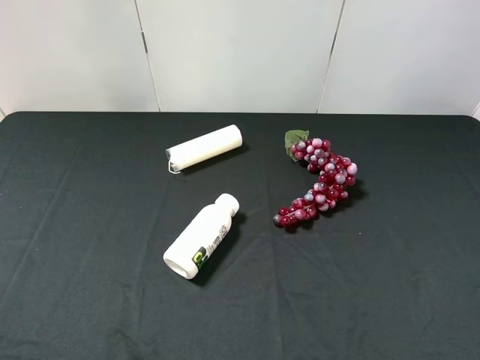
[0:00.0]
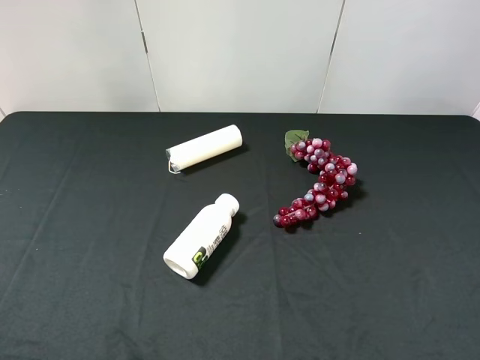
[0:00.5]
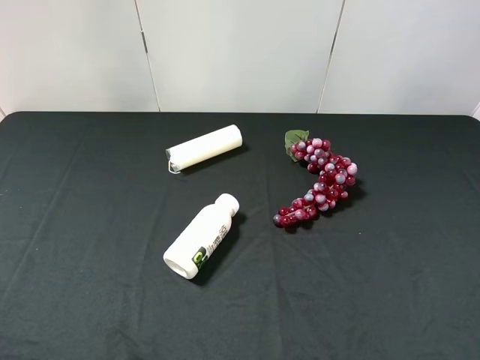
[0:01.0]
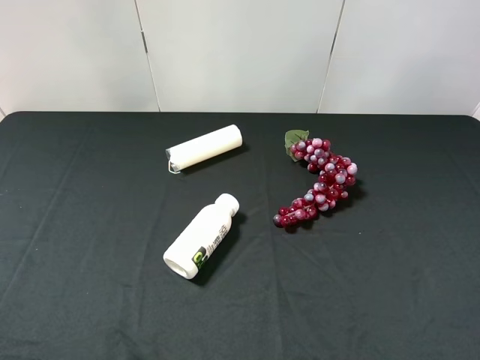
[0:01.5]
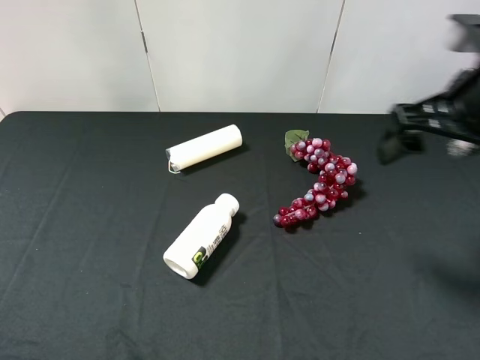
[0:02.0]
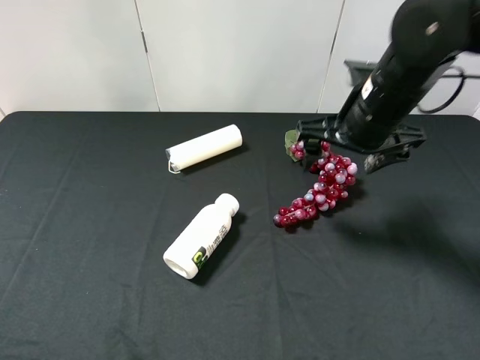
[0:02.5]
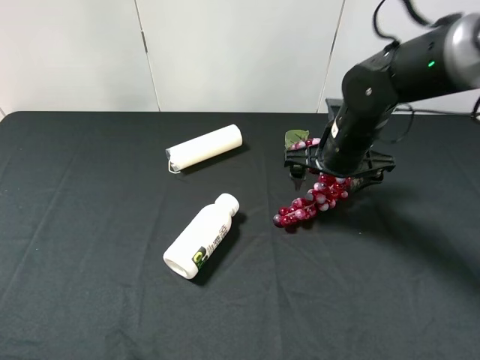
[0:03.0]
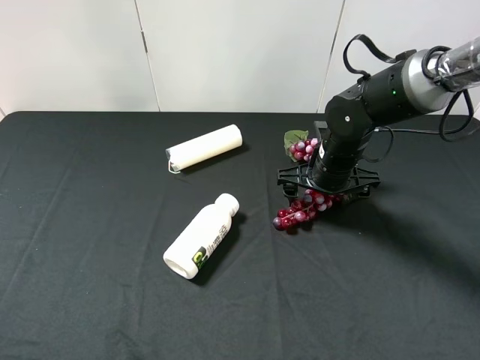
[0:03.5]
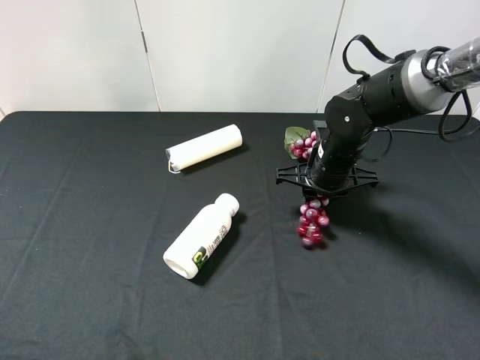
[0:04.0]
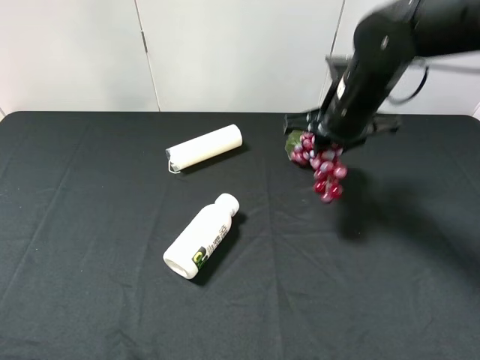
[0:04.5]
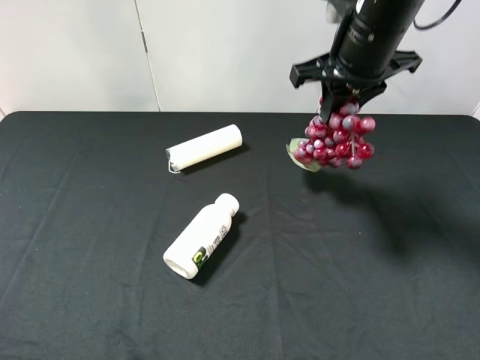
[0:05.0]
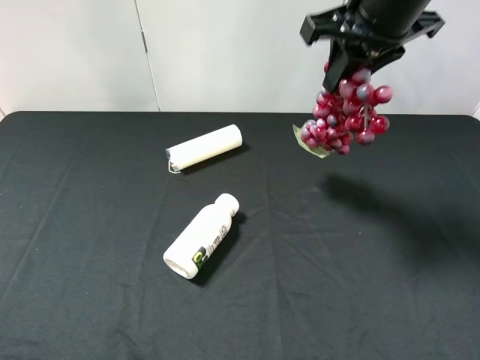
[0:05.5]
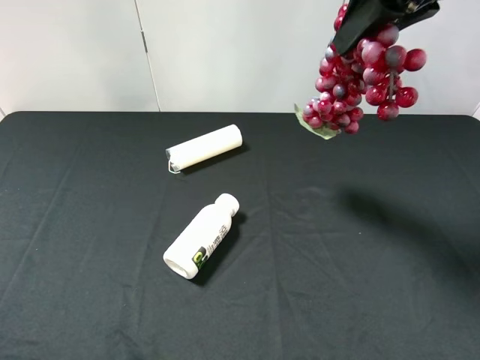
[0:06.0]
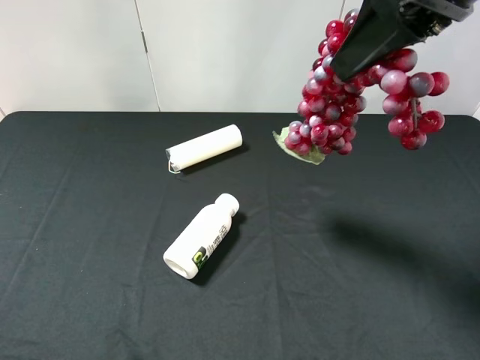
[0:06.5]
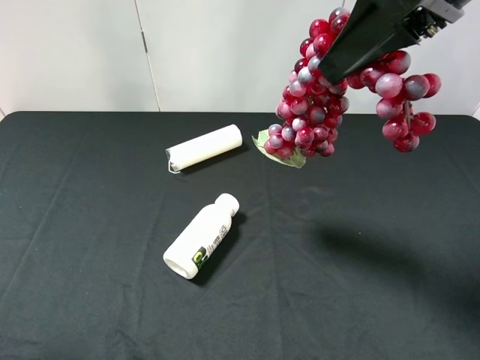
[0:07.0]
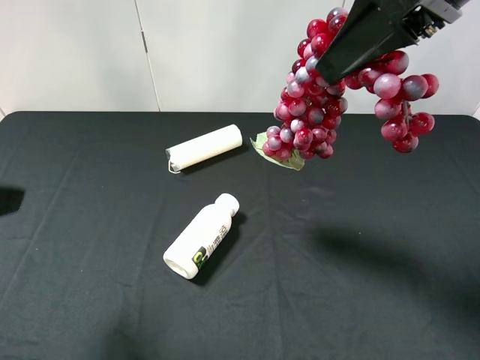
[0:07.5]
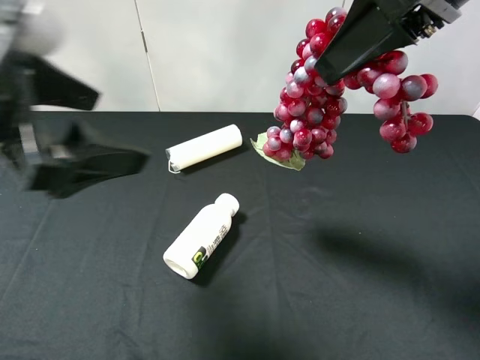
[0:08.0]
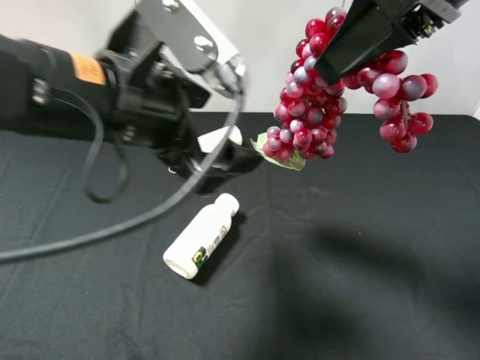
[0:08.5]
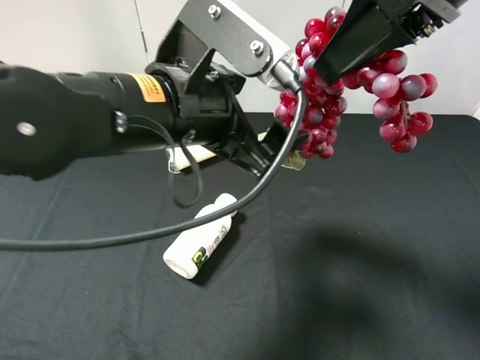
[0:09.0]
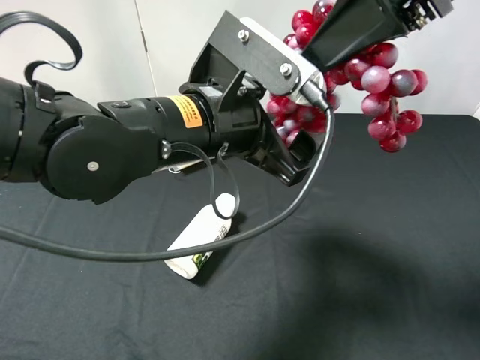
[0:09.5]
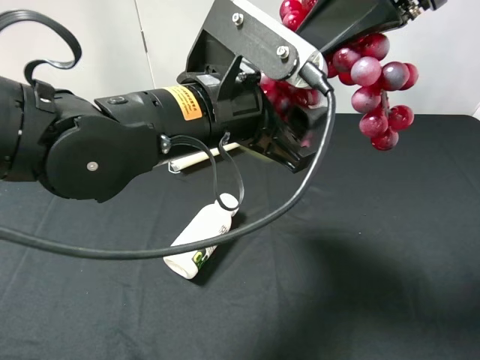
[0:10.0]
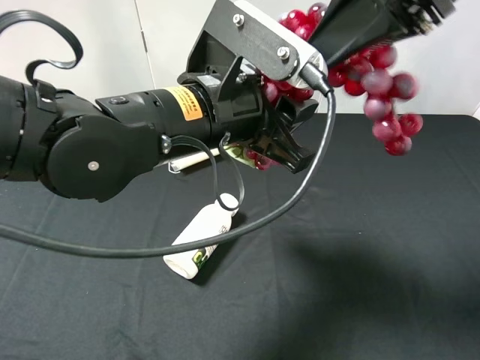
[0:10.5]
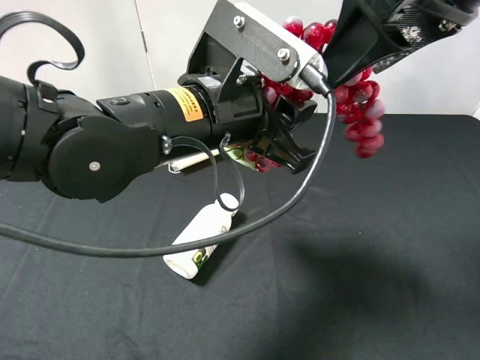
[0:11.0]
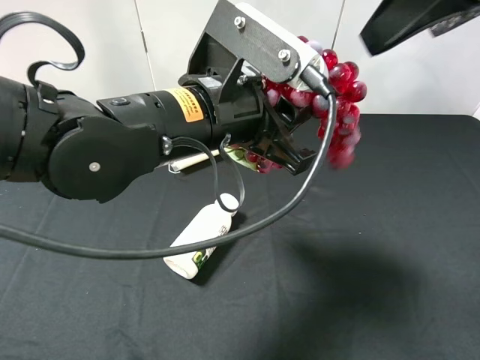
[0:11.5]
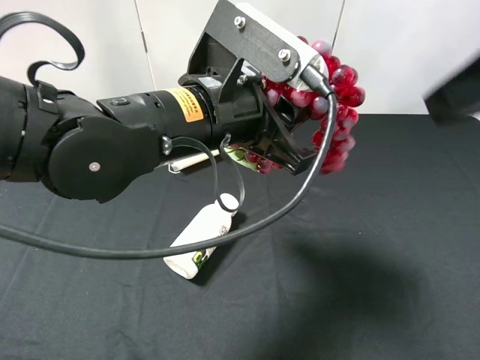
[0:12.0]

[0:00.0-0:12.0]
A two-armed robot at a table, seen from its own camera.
Task of the whole recording: use the right gripper to pick up the item and transfer it from the right gripper to the left gripper.
Step, 0:00.0 to 0:04.0: Use the right gripper to grab the grape on the right side of the table.
Step, 0:04.5 to 0:11.5: Pass the grape to the left gripper.
0:00.0 to 0:02.0: The right gripper heads forward, covering about 20 cm.
0:02.0 to 0:04.0: The right gripper travels downward, forward and to the left by some 20 cm, and closes its fingers.
0:04.0 to 0:06.0: The right gripper heads upward, covering some 30 cm.
0:06.0 to 0:08.0: The left gripper moves forward and to the right, about 20 cm.
0:08.0 to 0:10.0: The left gripper travels to the right and downward by about 15 cm, and closes up.
0:10.0 to 0:12.0: The right gripper moves backward and to the right, about 15 cm, and opens up.

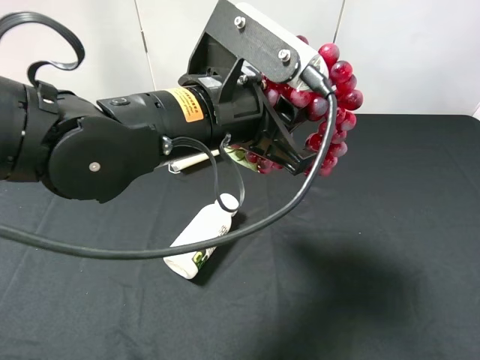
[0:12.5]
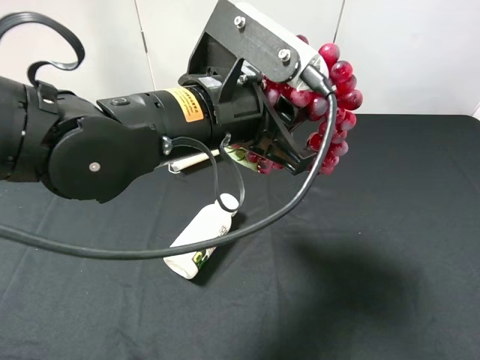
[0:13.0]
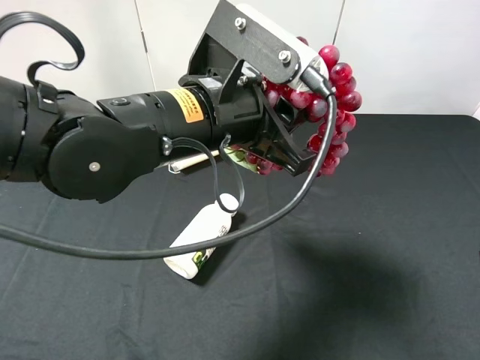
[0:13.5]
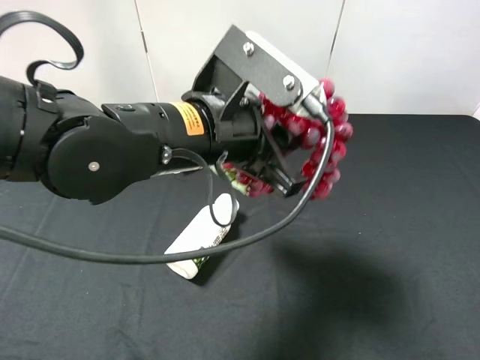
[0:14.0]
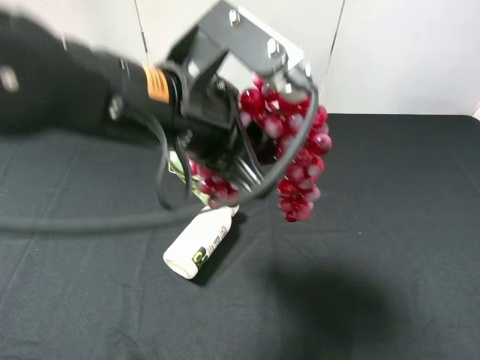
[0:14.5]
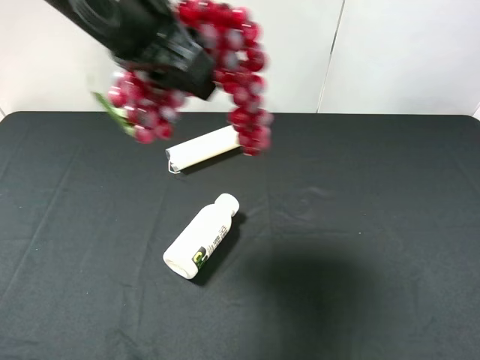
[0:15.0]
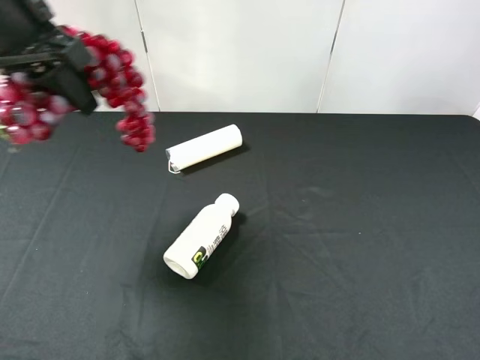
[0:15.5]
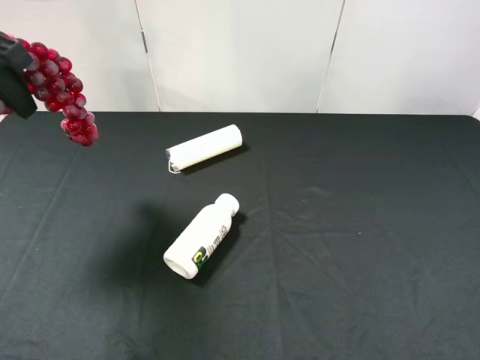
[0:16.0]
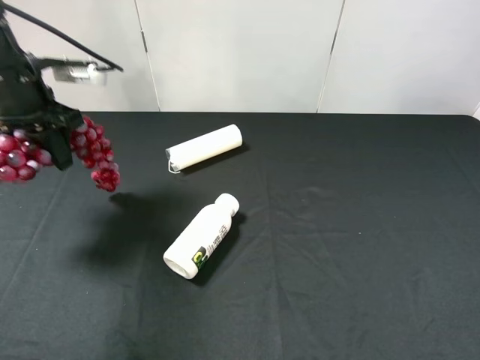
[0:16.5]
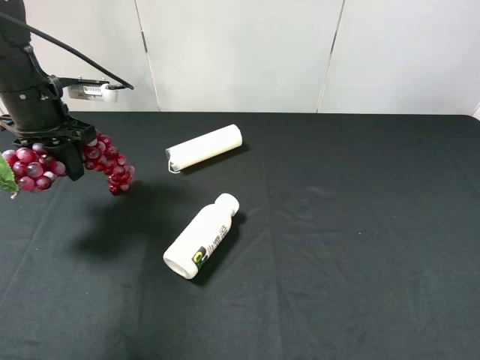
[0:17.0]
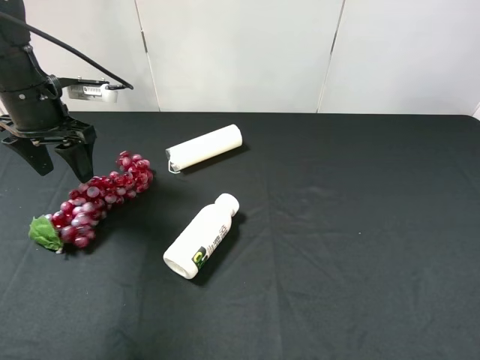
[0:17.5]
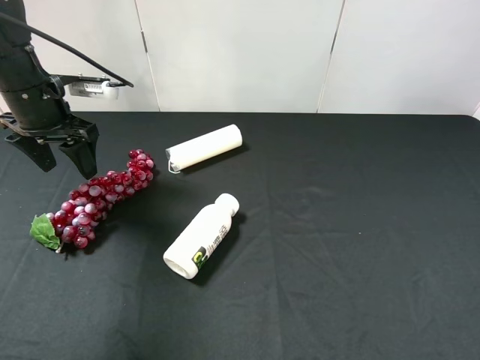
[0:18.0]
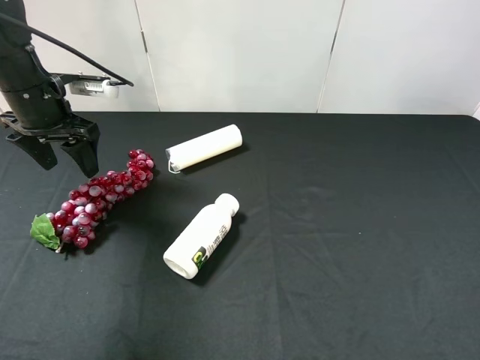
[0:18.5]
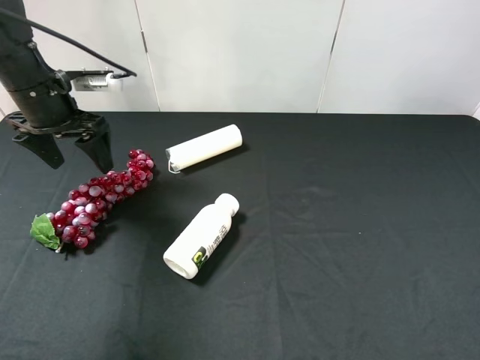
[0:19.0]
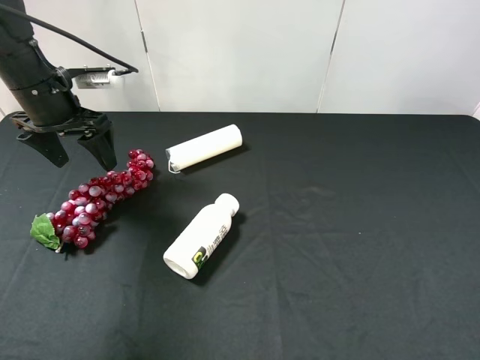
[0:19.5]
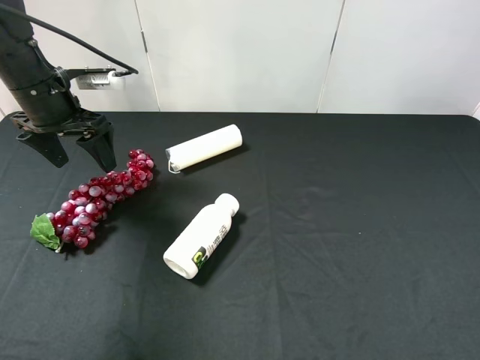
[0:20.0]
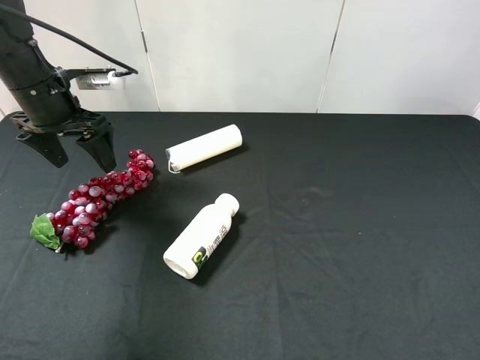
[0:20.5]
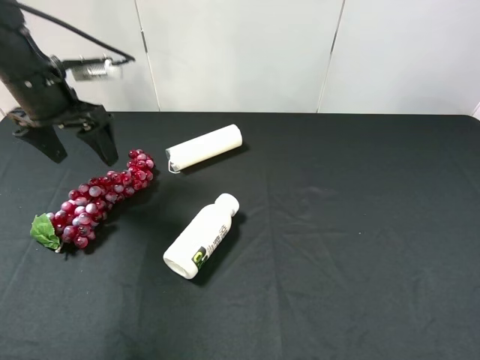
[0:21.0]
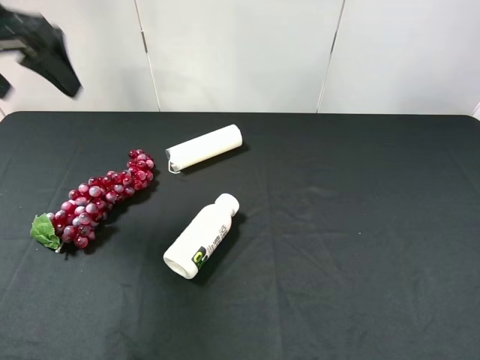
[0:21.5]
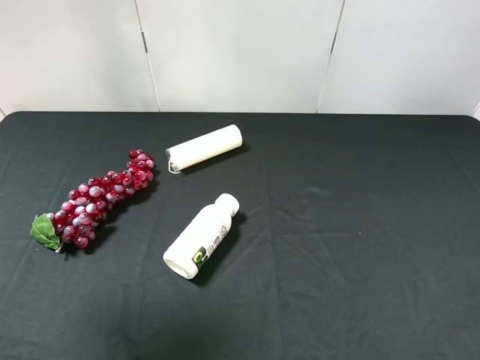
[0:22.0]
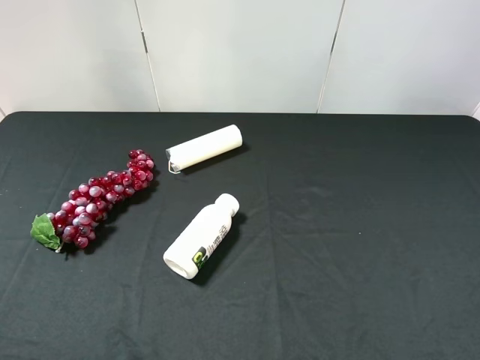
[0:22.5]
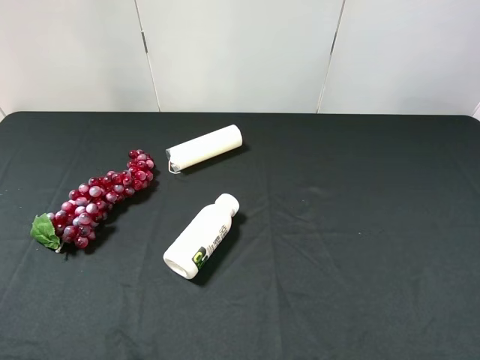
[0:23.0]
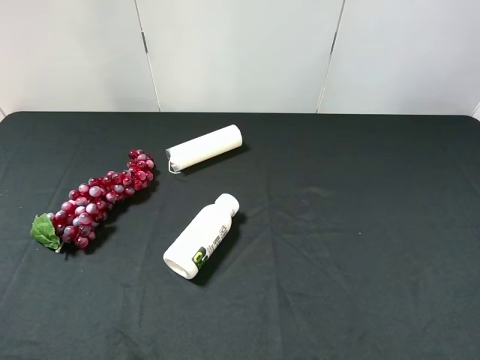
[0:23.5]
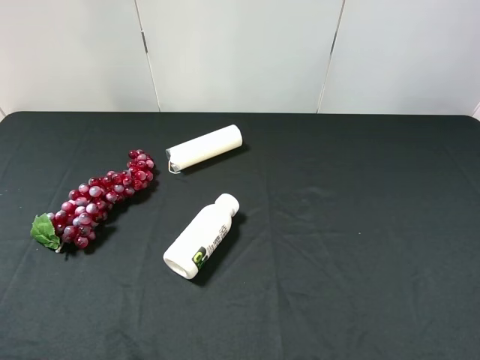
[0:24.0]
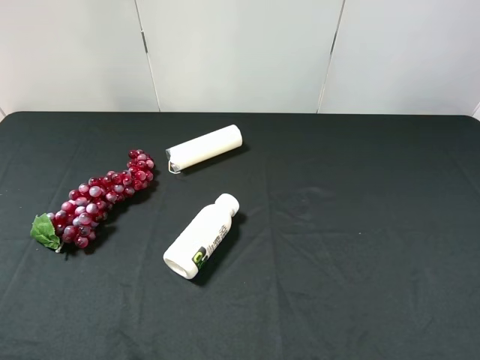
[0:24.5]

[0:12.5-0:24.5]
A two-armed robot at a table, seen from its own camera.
Task of the whole recording: use the right gripper to pick up the item and transfer it from the right gripper to the left gripper.
Step, 0:12.5 to 0:17.5: The left gripper places grape on the left side of the table.
0:12.5 to 0:14.5: The right gripper is displaced downward by about 5 cm.
0:14.5 to 0:16.5: The left gripper shifts about 25 cm to the left and forward.
0:16.5 to 0:18.5: The left gripper opens.
0:18.5 to 0:20.5: The grippers stay close to where they were, moving slightly.
0:20.5 to 0:22.5: The left gripper is displaced backward and upward by approximately 35 cm.
